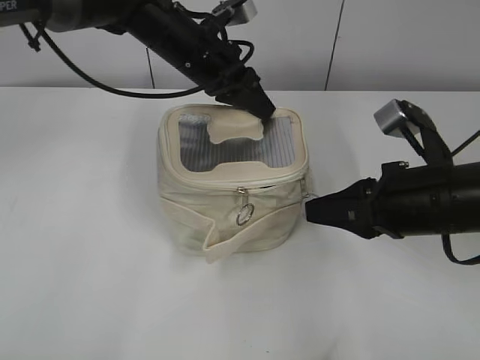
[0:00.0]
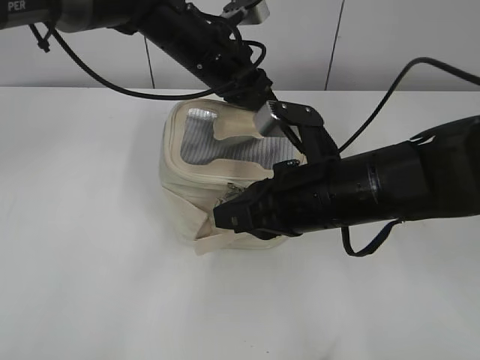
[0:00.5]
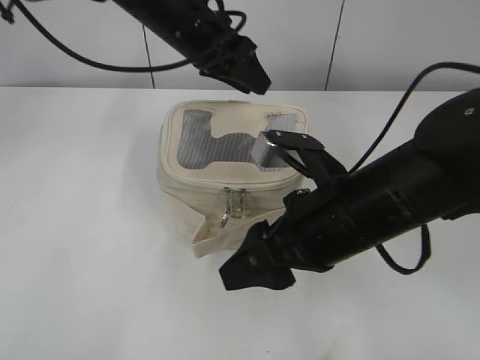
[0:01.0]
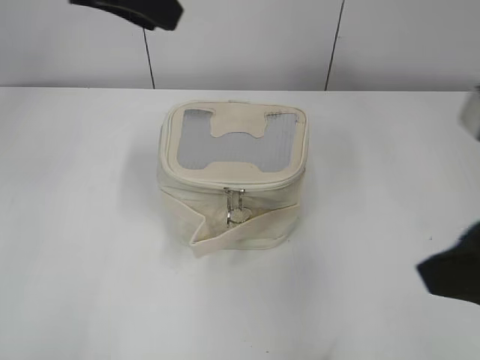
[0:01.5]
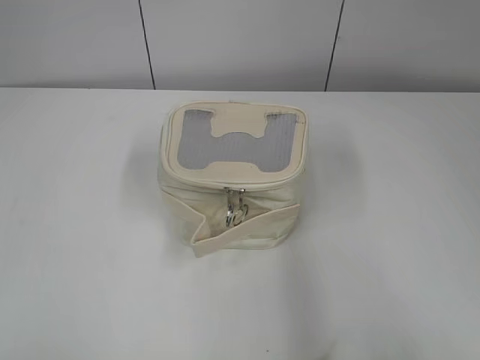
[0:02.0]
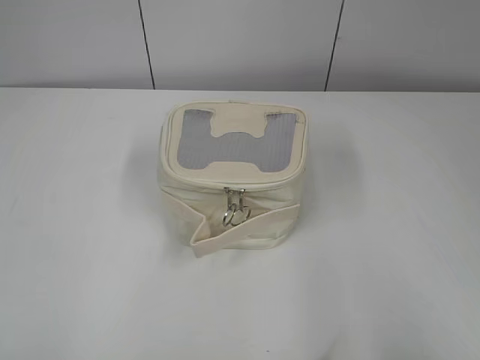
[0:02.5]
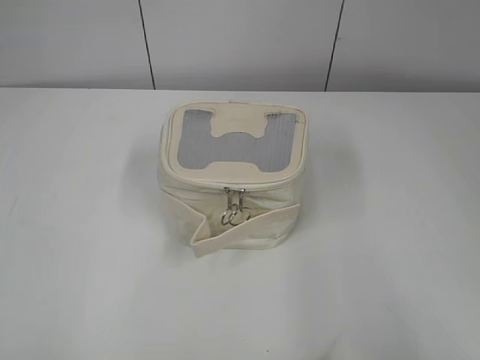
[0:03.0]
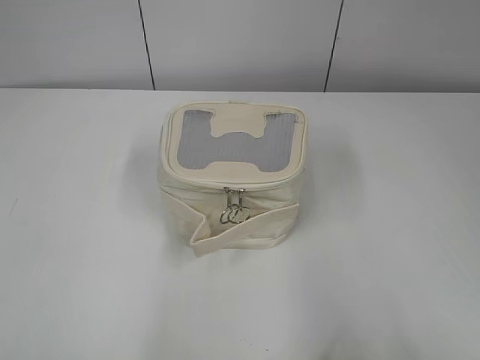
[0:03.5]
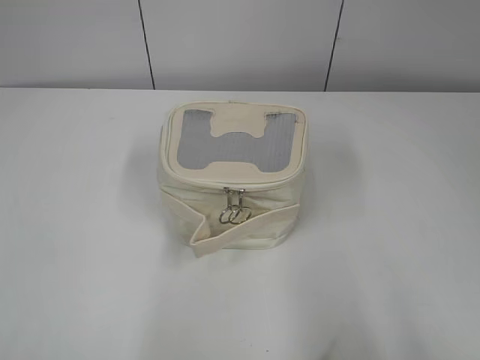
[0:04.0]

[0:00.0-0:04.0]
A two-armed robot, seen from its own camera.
0:00.0 to 0:02.0: The left gripper moves backward and to the left, approximately 40 cm, and opens, while the right gripper shifts some 25 cm backward, upward and to the right, and opens up.
